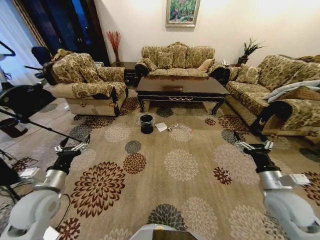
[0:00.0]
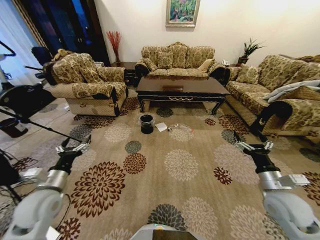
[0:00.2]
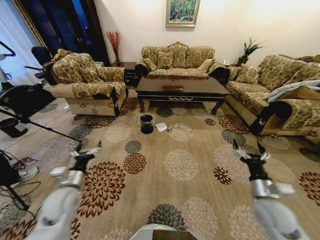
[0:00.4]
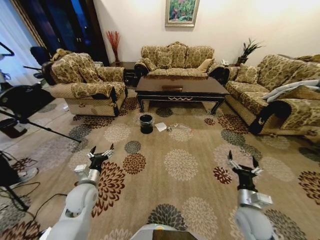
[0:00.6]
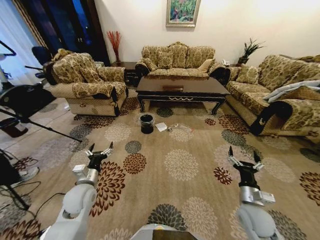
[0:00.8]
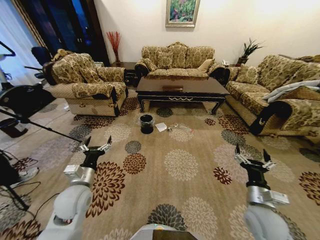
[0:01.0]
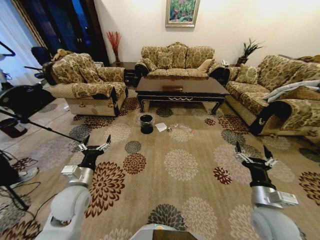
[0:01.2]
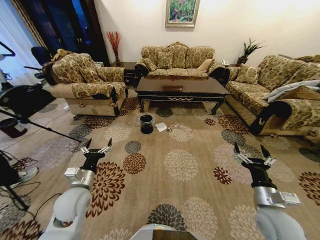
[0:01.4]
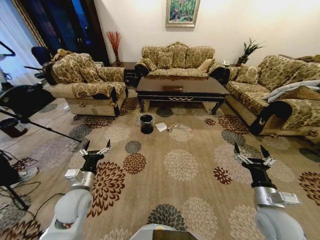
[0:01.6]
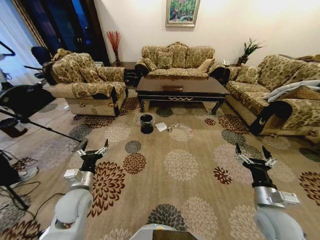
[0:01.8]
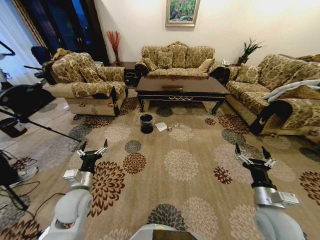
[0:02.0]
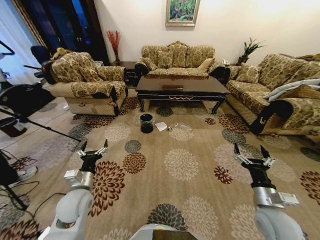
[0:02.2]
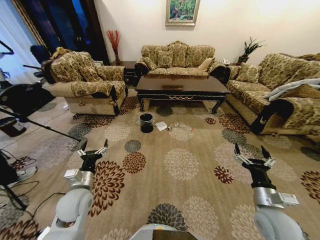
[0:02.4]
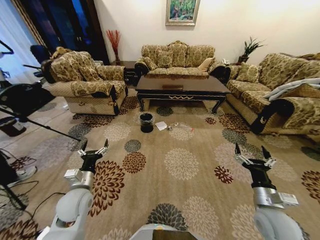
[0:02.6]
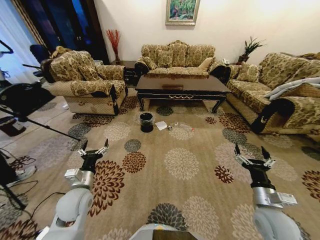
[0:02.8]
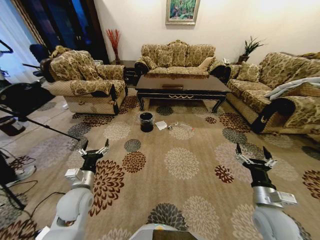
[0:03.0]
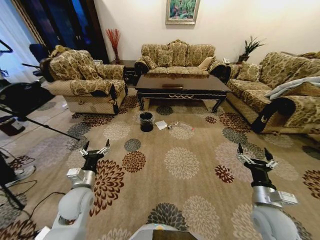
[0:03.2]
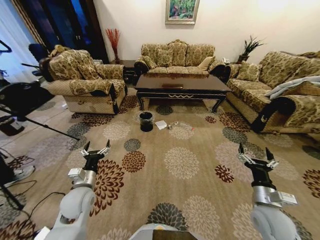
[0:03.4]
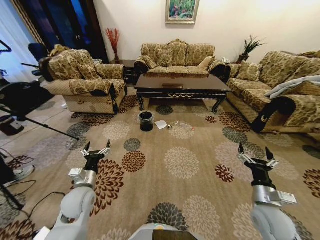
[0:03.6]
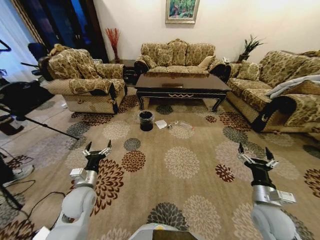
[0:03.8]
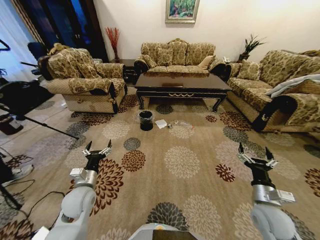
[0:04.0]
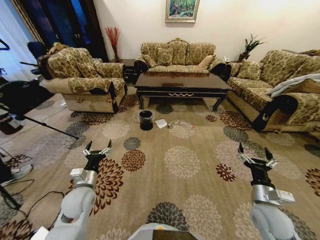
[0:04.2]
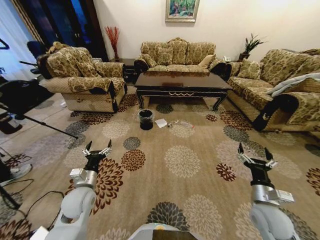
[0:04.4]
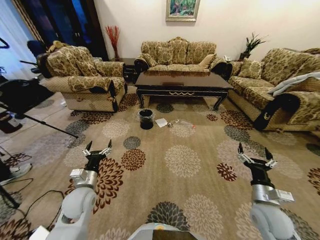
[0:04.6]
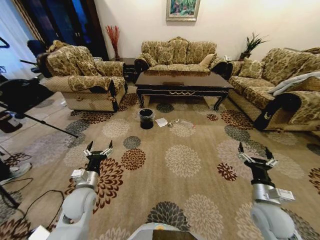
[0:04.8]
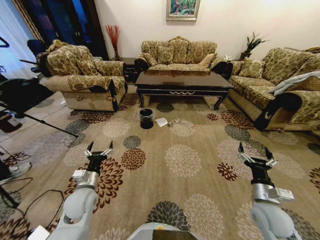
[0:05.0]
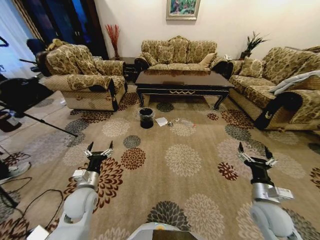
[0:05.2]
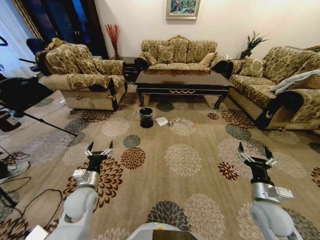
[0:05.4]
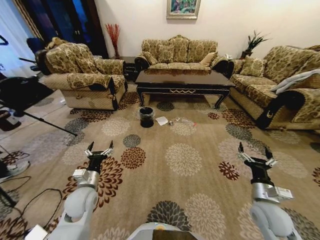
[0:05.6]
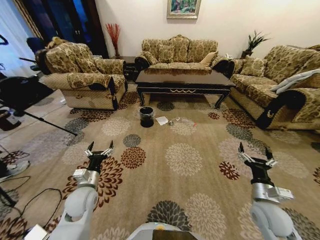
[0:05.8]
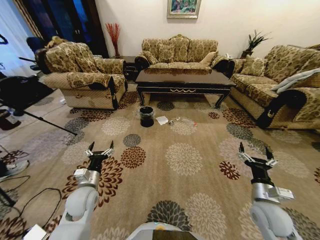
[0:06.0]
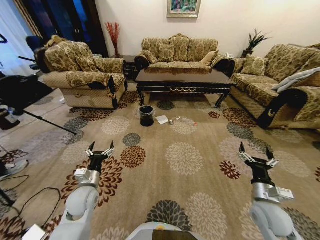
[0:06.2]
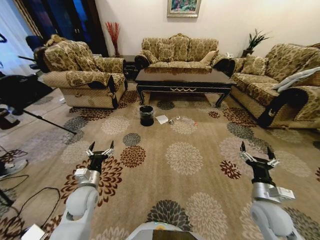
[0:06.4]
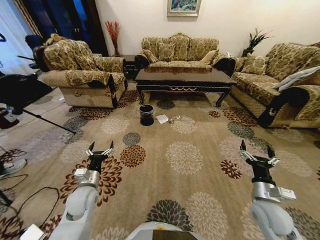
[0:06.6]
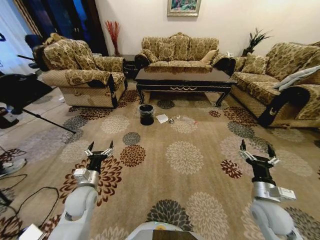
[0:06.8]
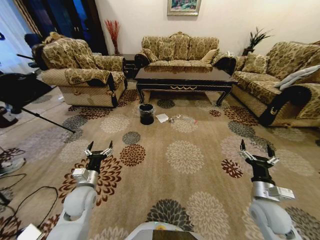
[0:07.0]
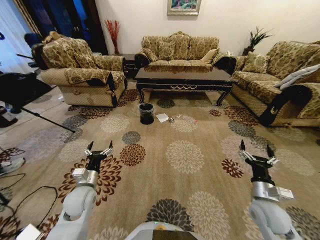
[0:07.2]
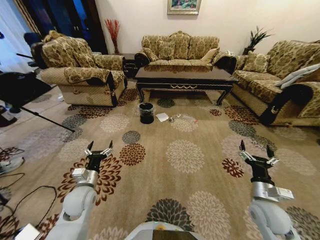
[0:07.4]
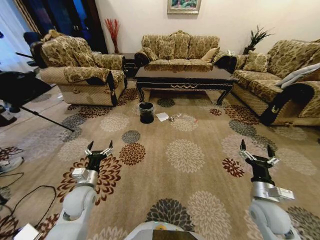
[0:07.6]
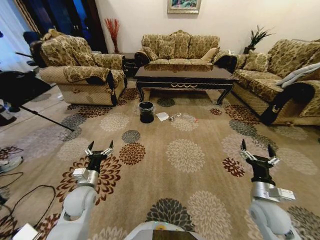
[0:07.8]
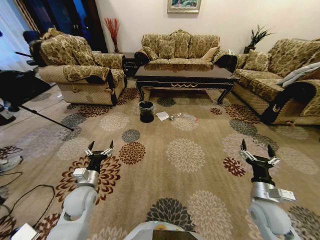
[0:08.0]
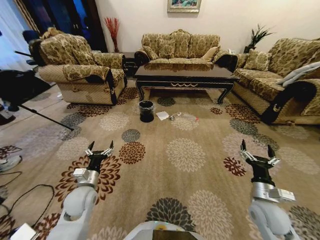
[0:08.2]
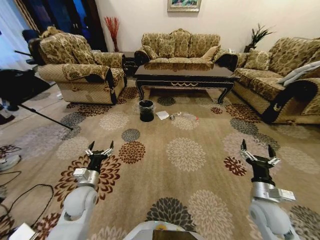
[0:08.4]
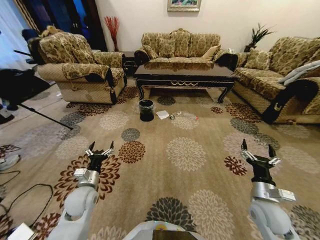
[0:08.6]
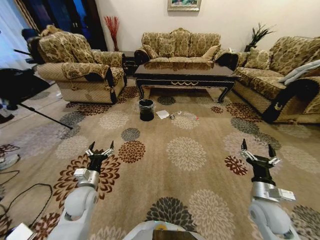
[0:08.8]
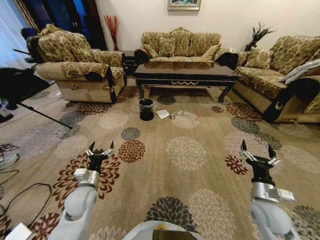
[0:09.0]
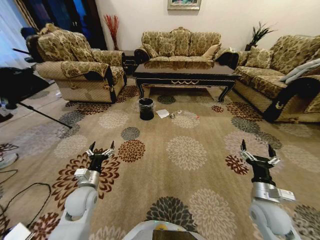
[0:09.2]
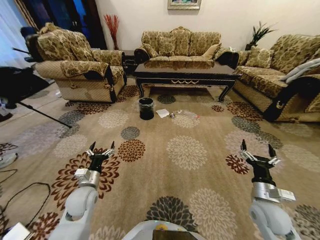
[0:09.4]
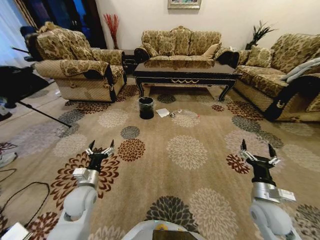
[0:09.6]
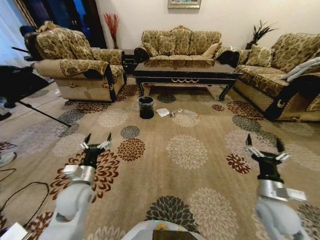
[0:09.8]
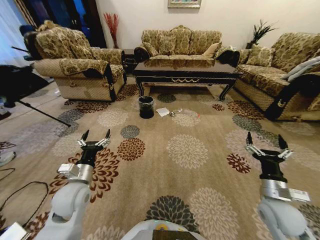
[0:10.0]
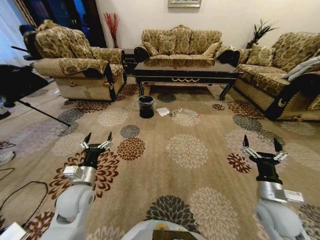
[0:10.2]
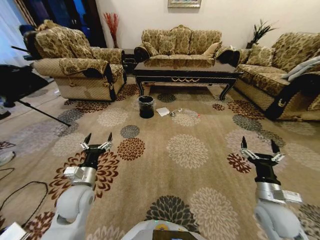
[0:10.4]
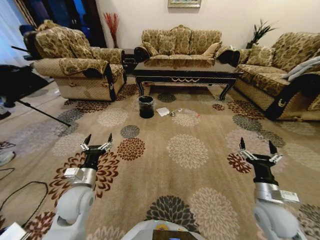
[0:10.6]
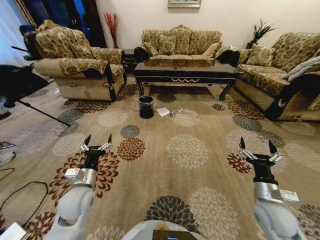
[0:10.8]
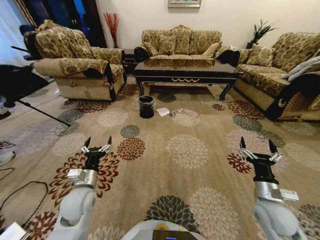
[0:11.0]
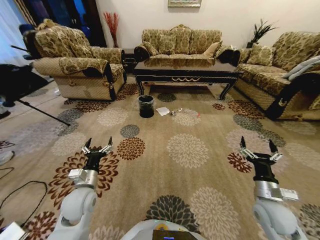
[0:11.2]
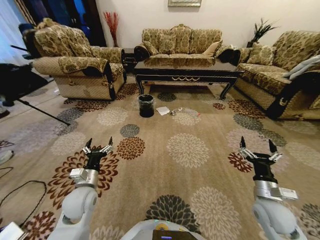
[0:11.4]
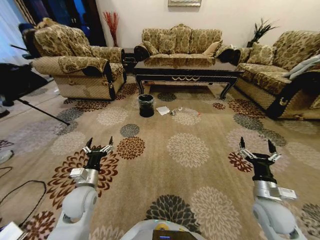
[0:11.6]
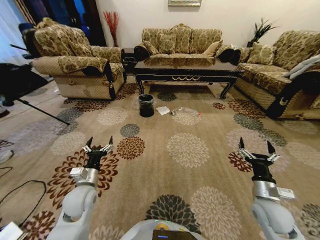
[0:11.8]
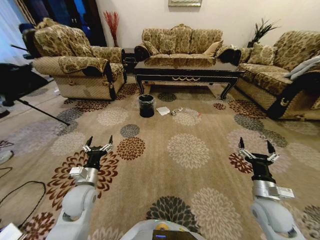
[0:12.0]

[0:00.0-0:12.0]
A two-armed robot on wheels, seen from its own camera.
Task of the whole recording: Move to the front of the table and pick up the trash from the floor, then place it into the trash bin.
0:09.0 to 0:10.4: The left gripper moves roughly 5 cm.
0:10.4 to 0:12.0: The grippers move only a little.

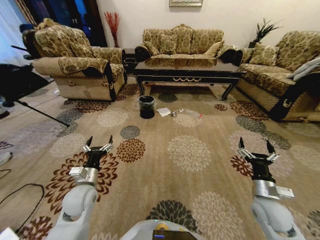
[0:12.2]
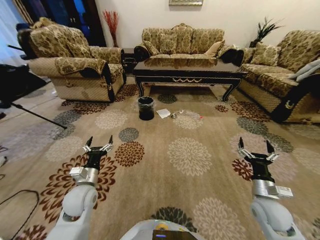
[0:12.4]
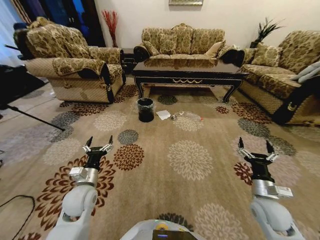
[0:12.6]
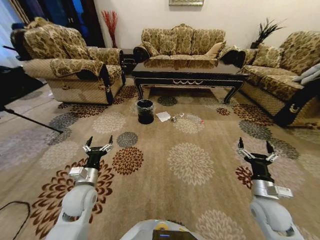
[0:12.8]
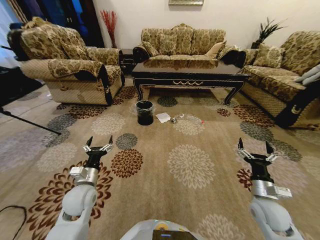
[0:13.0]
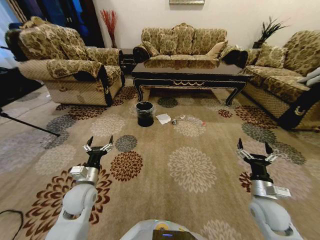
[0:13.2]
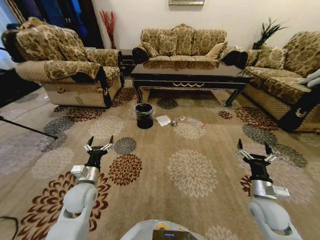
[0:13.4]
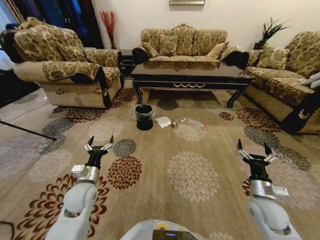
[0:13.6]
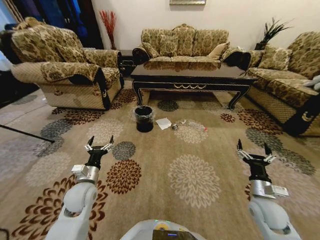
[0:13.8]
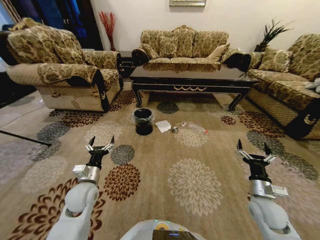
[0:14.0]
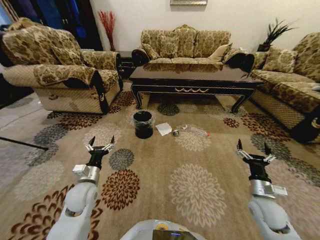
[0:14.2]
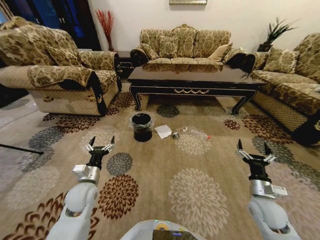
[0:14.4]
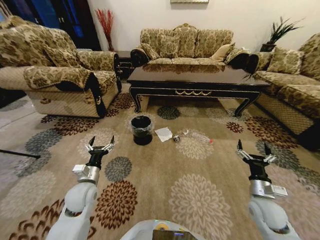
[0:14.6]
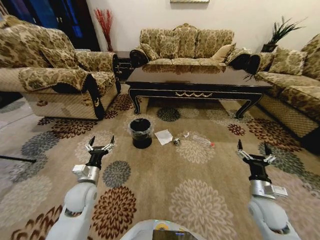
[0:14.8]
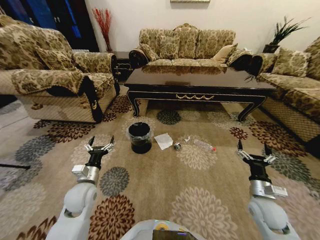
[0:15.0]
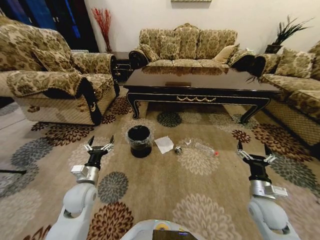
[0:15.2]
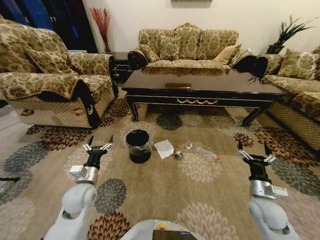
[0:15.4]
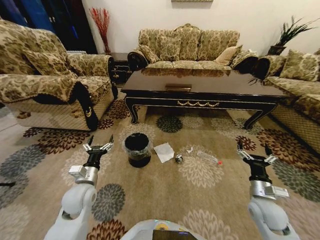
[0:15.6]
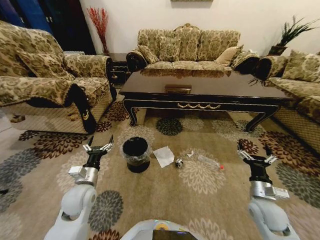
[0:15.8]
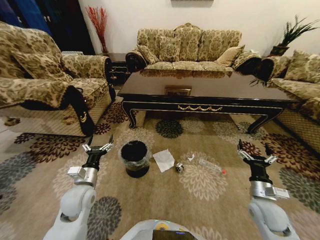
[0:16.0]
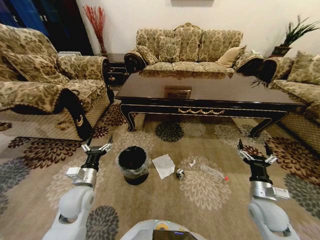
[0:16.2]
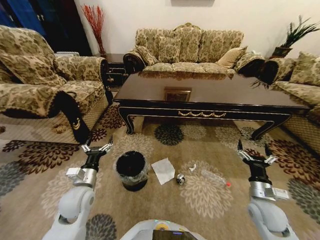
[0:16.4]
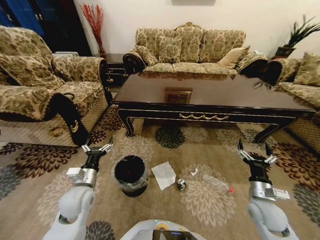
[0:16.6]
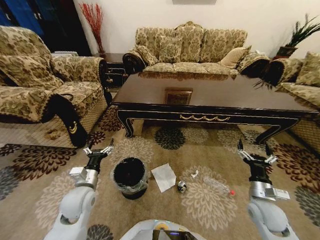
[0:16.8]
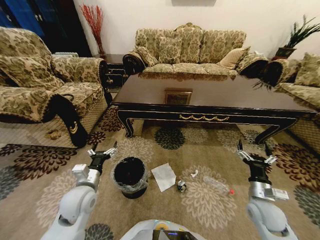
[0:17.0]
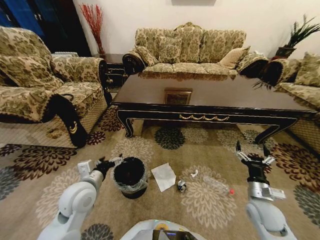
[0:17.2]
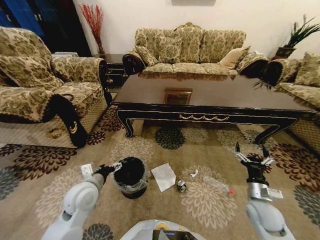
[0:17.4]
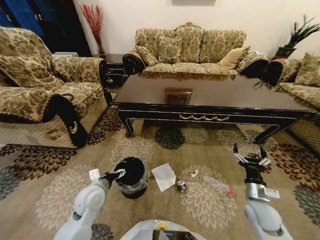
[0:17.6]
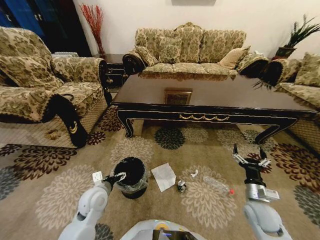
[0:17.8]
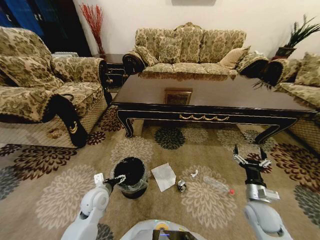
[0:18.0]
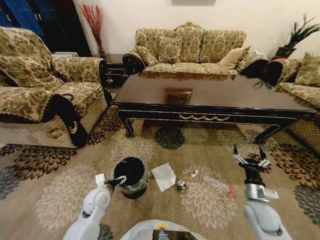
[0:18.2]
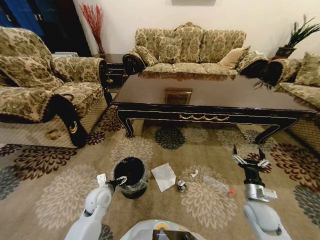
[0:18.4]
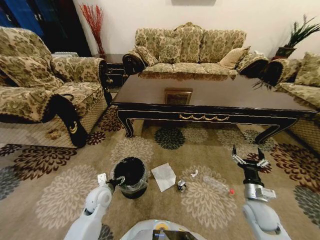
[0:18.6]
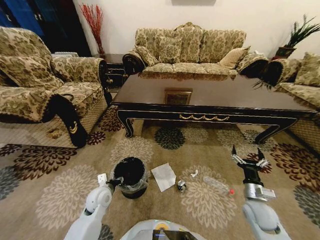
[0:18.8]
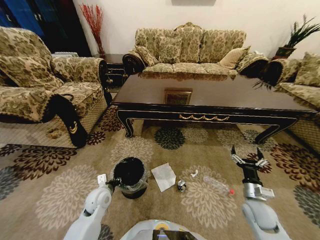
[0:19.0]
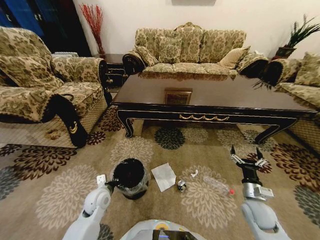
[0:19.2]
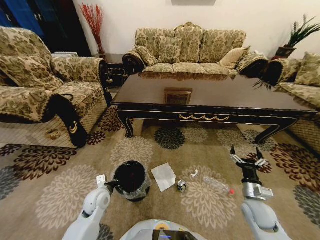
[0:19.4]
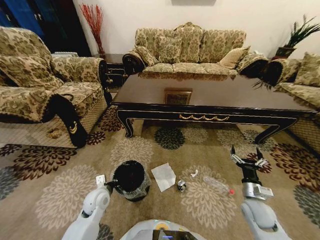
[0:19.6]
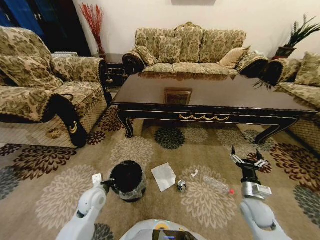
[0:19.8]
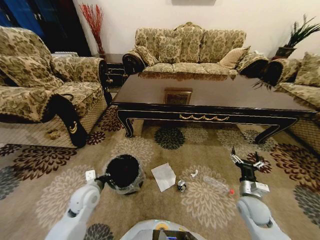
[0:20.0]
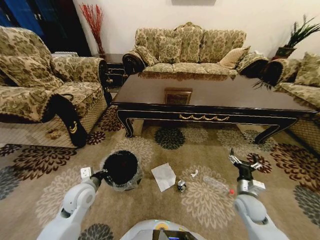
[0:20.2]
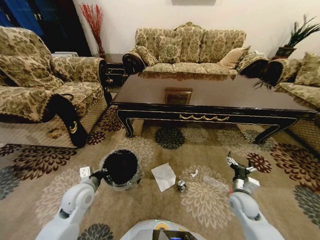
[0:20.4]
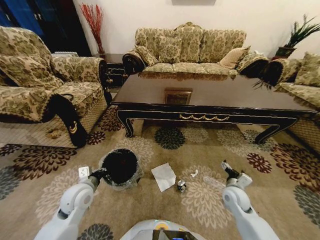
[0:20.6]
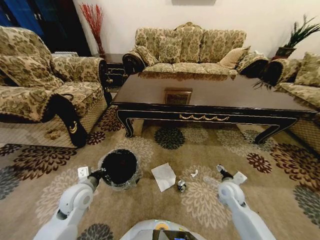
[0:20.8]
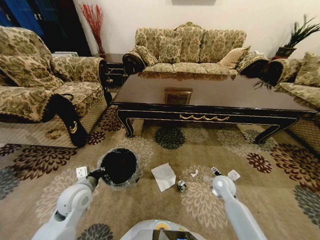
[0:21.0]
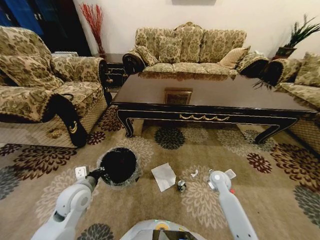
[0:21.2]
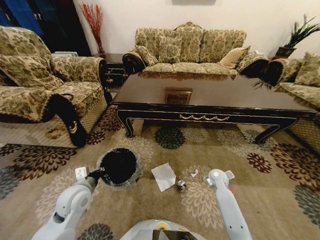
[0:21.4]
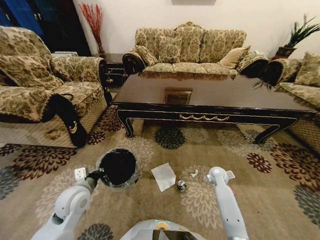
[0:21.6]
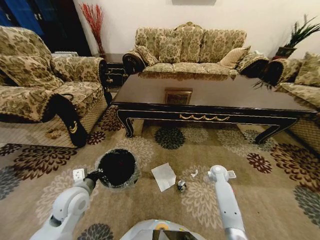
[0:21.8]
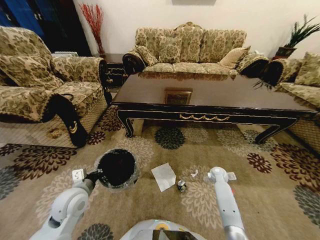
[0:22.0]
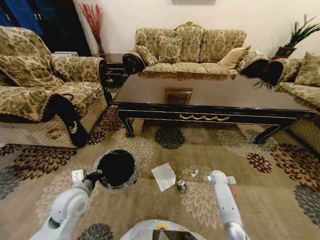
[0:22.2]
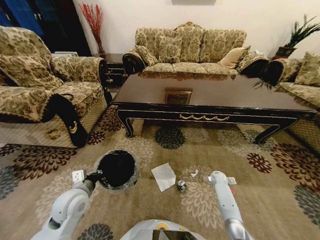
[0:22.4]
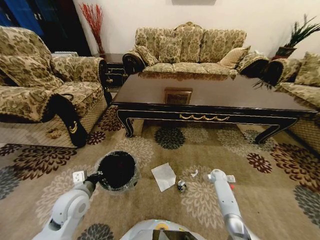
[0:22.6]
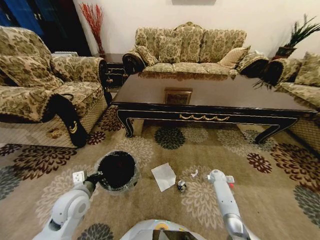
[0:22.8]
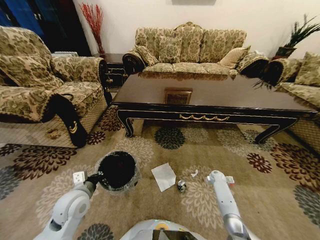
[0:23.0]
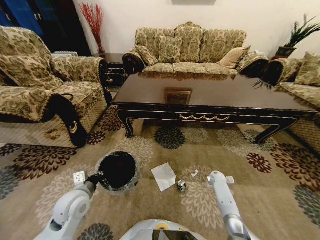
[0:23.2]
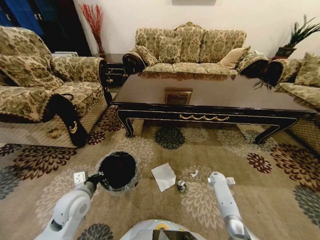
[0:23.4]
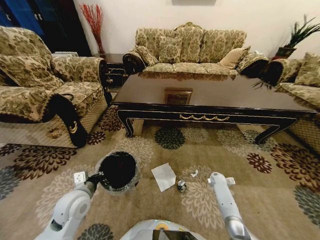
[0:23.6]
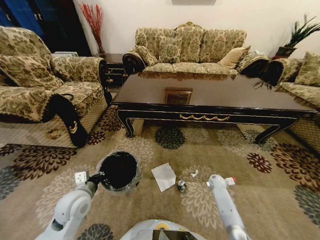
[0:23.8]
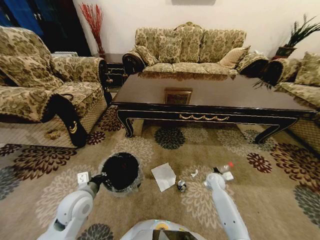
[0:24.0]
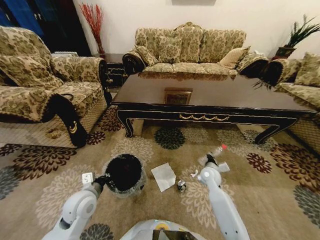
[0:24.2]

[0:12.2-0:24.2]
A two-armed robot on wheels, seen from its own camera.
Task of the whole recording: Move to the front of the table and pick up the trash from the floor, then place it into the trash bin.
0:16.6 to 0:18.2: The left gripper goes roughly 10 cm downward.
0:18.2 to 0:19.8: The left gripper closes its fingers.
0:19.8 to 0:21.2: The left gripper is displaced upward by about 10 cm. Meanwhile the right gripper goes about 15 cm forward and to the left.
0:21.2 to 0:22.6: The right gripper goes about 15 cm downward, forward and to the right.
0:22.6 to 0:24.2: The right gripper moves upward, to the left and backward, roughly 15 cm, and closes up.
